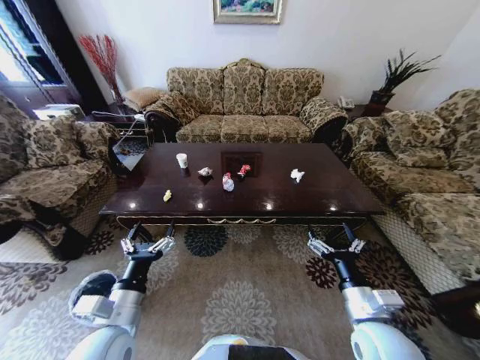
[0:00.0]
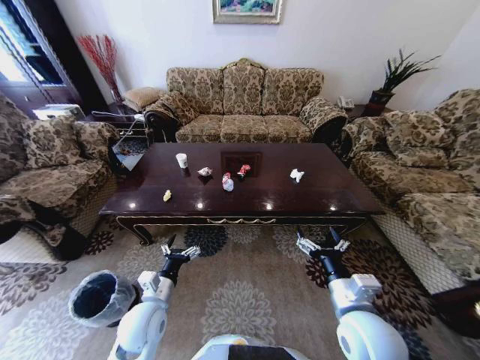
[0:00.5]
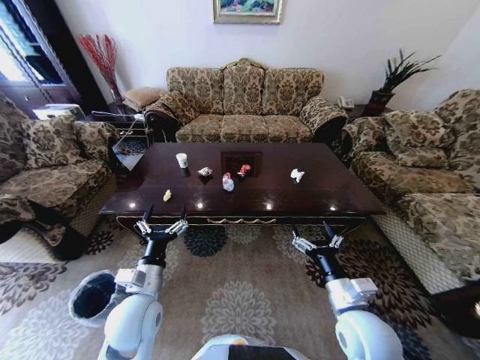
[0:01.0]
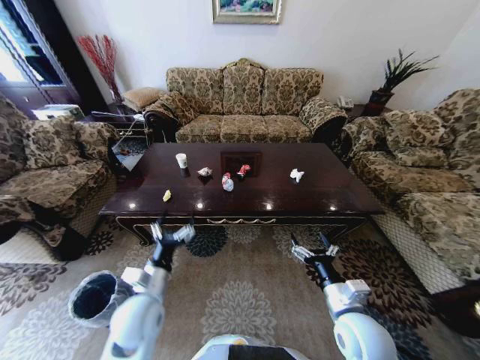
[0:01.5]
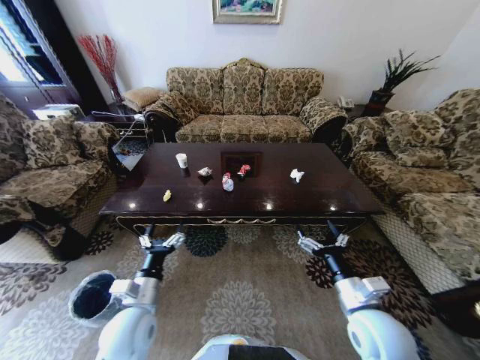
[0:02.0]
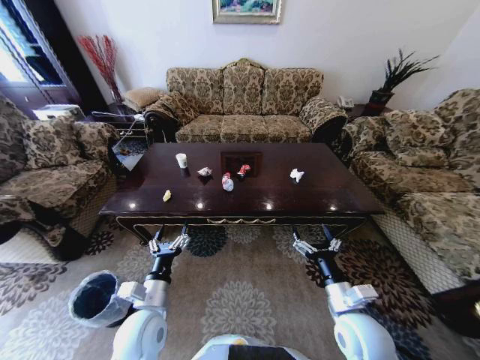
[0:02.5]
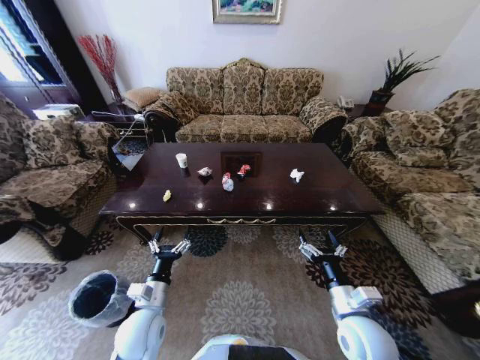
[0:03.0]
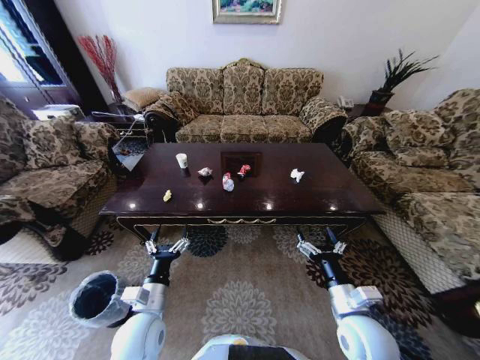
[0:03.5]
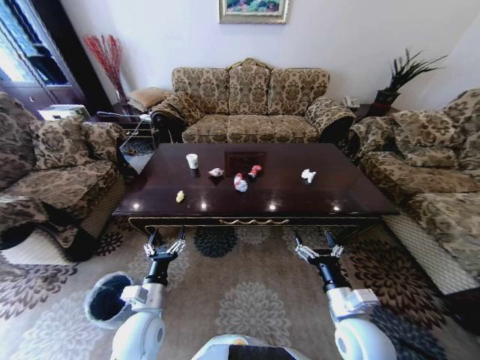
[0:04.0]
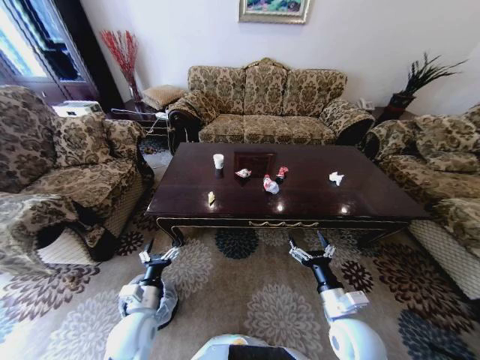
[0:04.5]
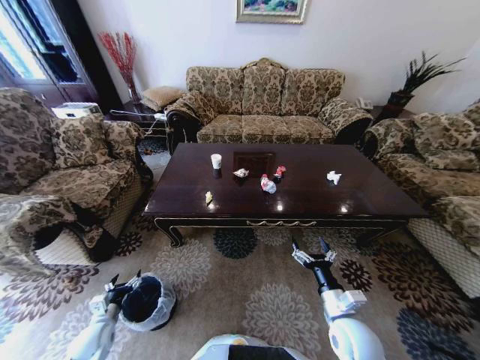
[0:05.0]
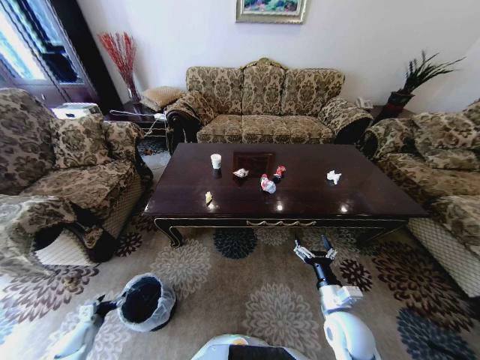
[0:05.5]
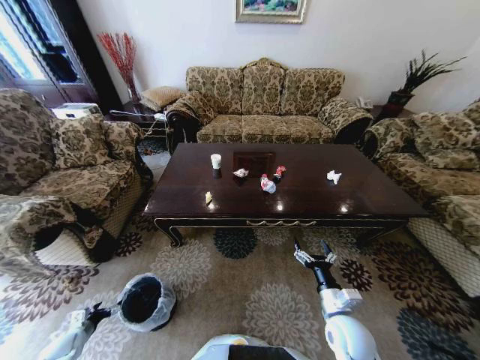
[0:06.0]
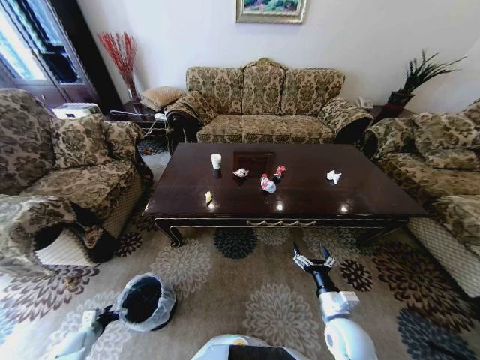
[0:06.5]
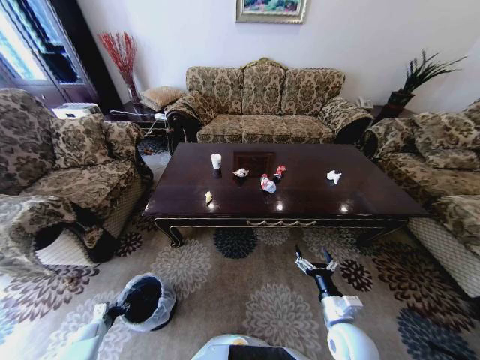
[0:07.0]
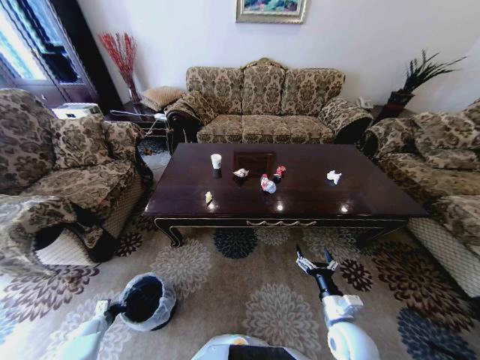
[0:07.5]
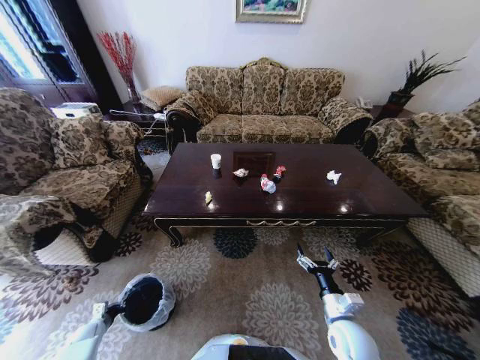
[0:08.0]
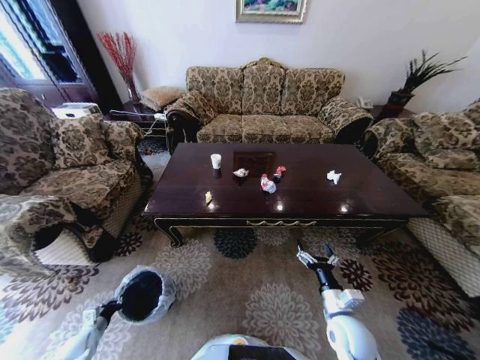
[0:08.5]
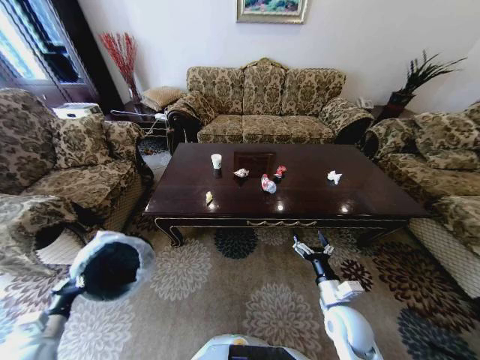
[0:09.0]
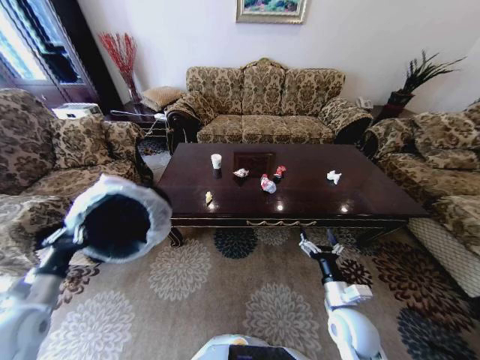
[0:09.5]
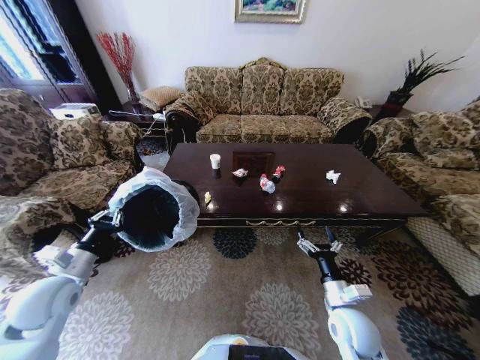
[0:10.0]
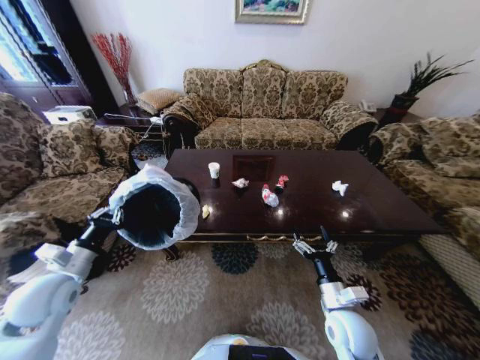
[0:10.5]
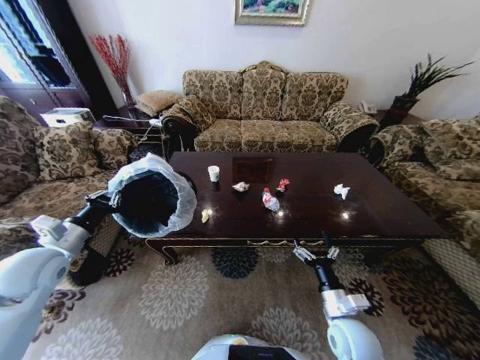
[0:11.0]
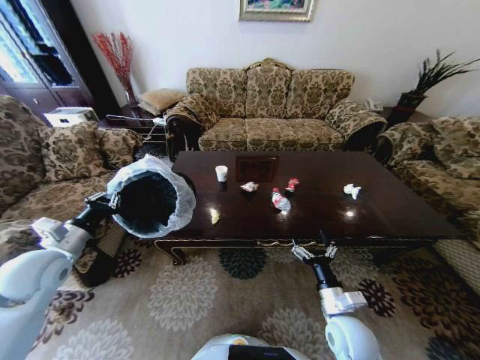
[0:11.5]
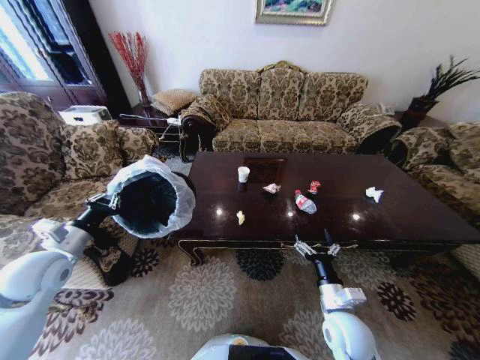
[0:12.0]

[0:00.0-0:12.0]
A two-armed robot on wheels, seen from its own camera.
Task of the whole recording: Move to the front of the table and place the trash on the table into the trash bin.
0:04.0 to 0:06.0: The right gripper goes approximately 5 cm downward; the left gripper shifts roughly 40 cm to the left and downward.
0:06.0 to 0:08.0: The left gripper shifts approximately 5 cm downward, and closes.
0:08.0 to 0:10.0: The left gripper heads upward, covering approximately 40 cm.
0:10.0 to 0:12.0: The left gripper shifts by approximately 5 cm.

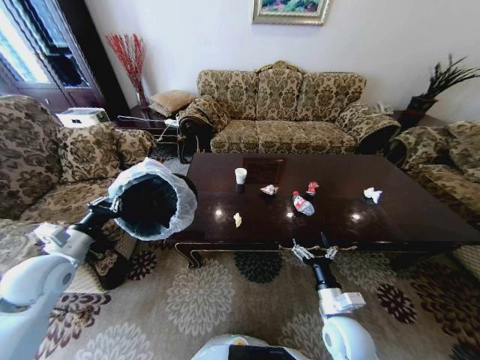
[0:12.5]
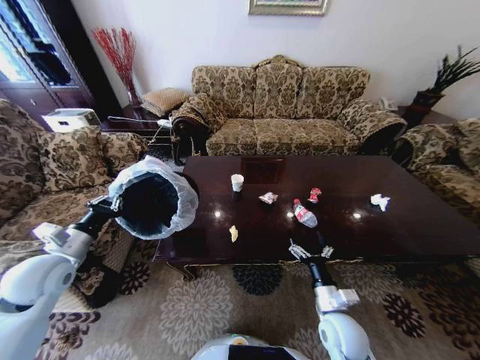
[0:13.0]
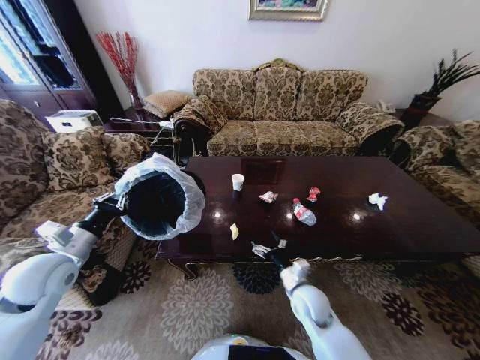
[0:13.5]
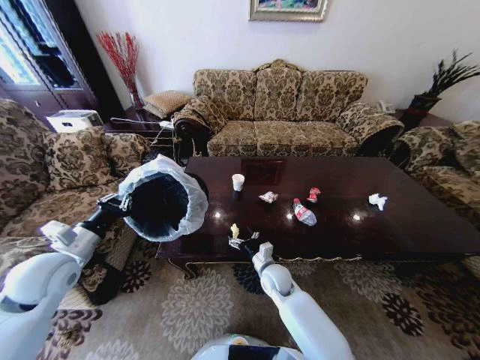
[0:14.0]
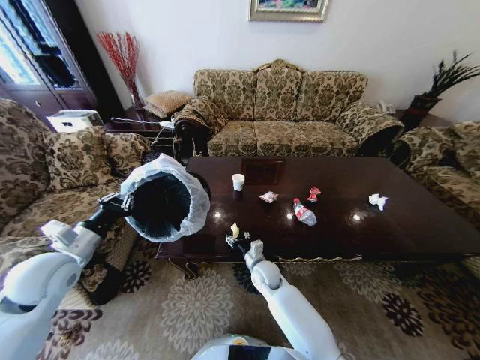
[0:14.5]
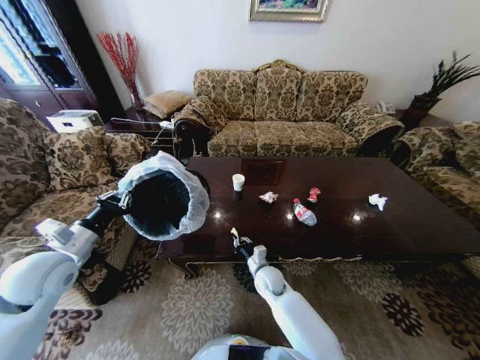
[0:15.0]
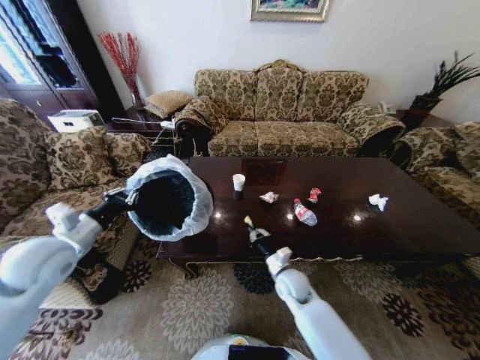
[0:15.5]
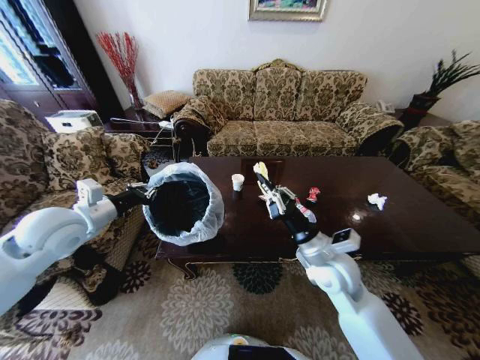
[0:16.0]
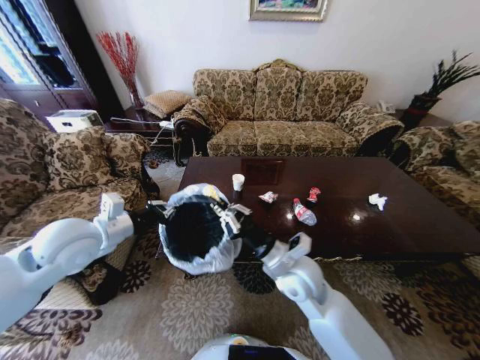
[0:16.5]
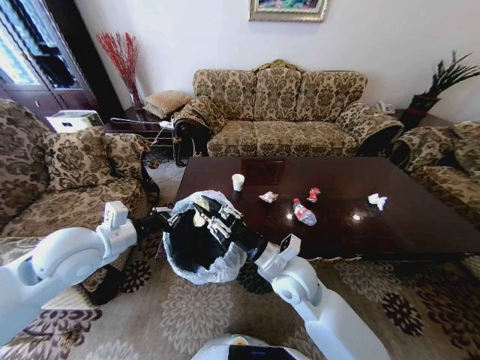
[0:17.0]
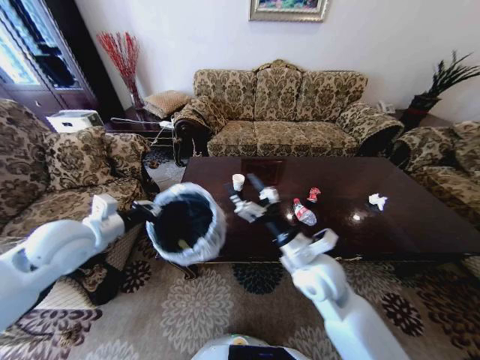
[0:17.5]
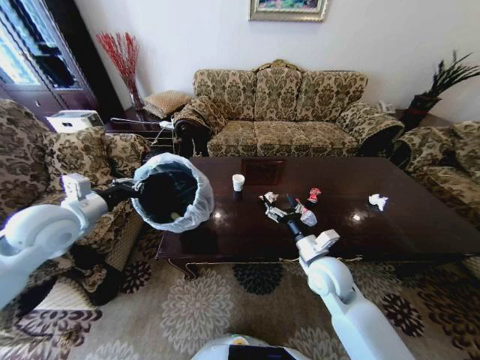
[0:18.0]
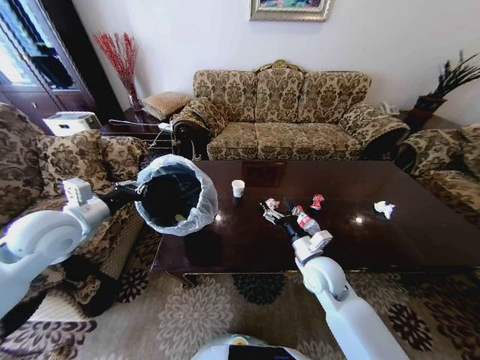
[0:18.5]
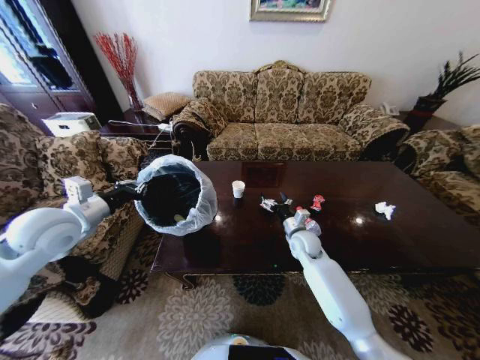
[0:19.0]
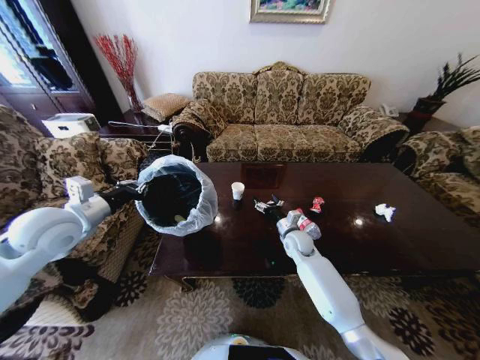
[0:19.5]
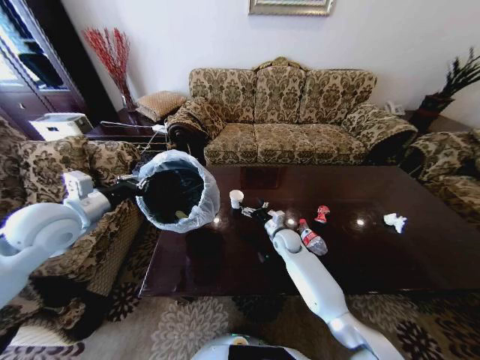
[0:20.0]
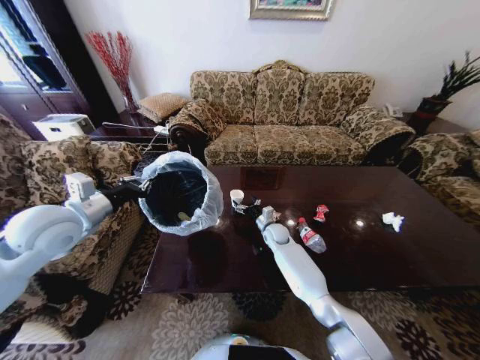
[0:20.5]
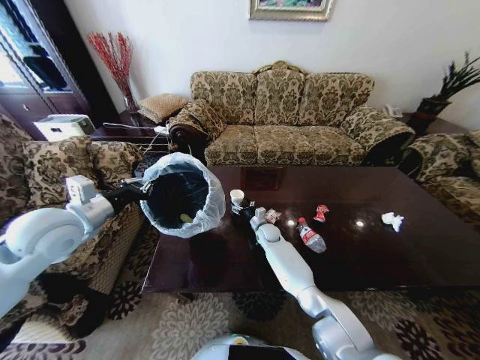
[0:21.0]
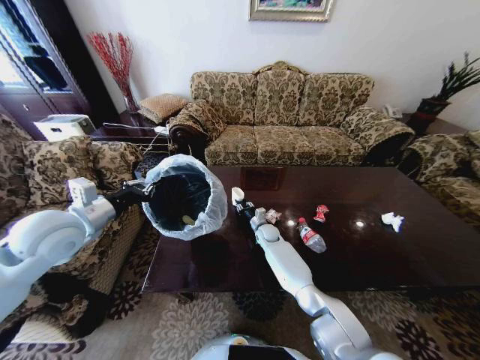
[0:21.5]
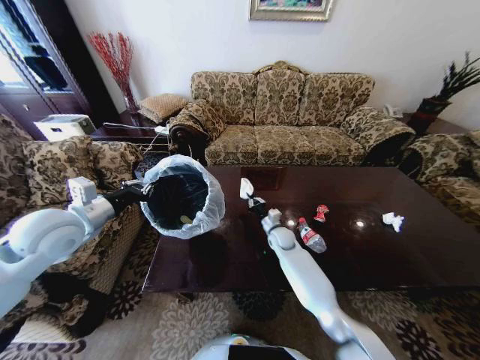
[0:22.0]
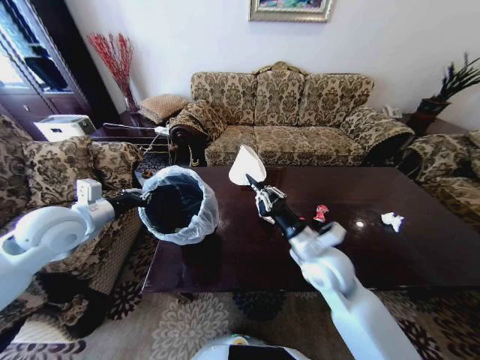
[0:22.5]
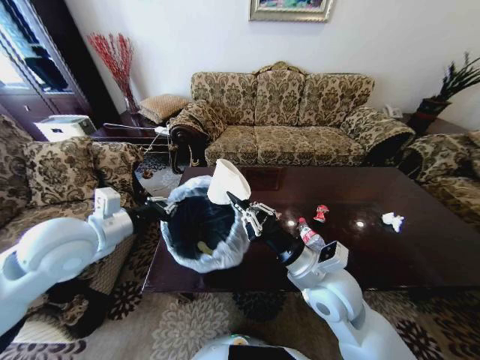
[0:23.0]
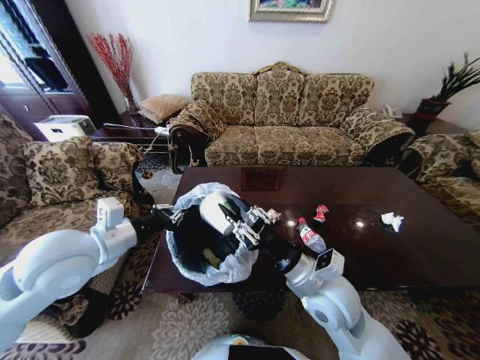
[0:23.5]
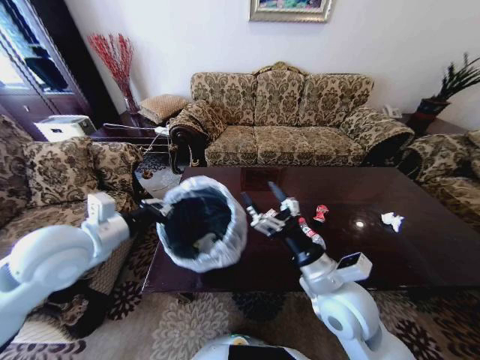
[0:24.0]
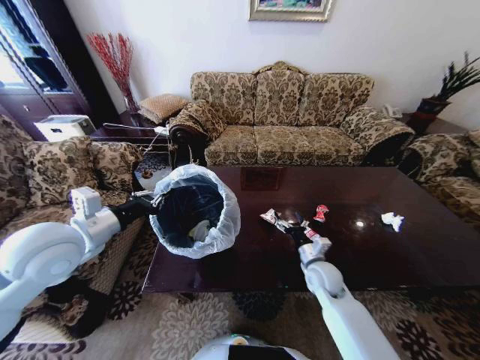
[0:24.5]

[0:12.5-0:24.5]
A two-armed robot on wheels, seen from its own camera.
Task of the whole recording: Move to the front of the table and place the trash on the table into the trash bin.
0:12.5 to 0:14.5: The right gripper travels forward, to the left and downward by roughly 25 cm.
0:14.5 to 0:16.5: The left gripper shifts approximately 10 cm to the right and upward. The right gripper moves upward, roughly 20 cm, and closes its fingers.
0:16.5 to 0:18.5: The right gripper travels to the right and downward by roughly 10 cm, and opens up, while the left gripper ends up about 5 cm from where it was.
0:18.5 to 0:20.5: The right gripper goes approximately 25 cm forward and downward.
0:20.5 to 0:22.5: The right gripper moves backward and upward, approximately 30 cm, and closes.
0:22.5 to 0:24.5: The left gripper shifts roughly 5 cm backward and to the right, while the right gripper is displaced downward by about 15 cm, and opens.

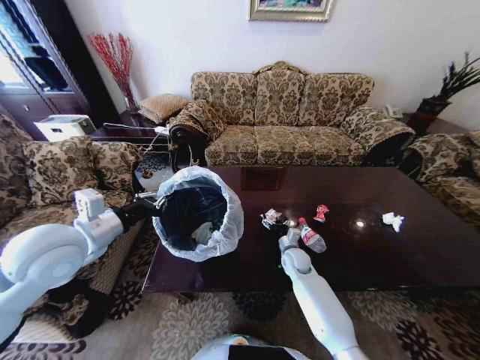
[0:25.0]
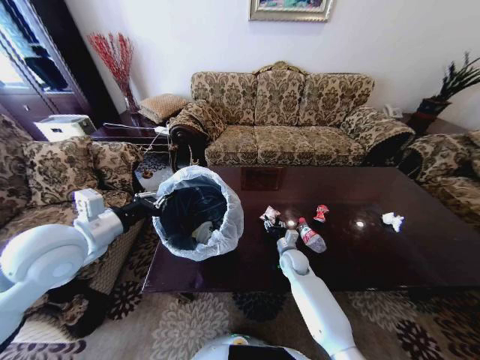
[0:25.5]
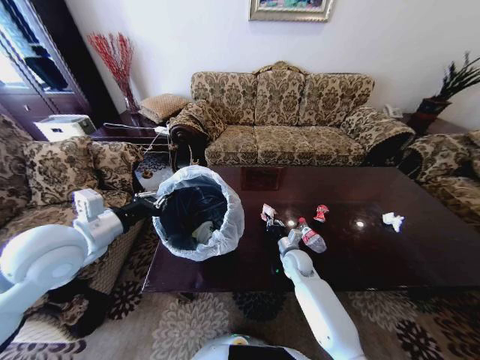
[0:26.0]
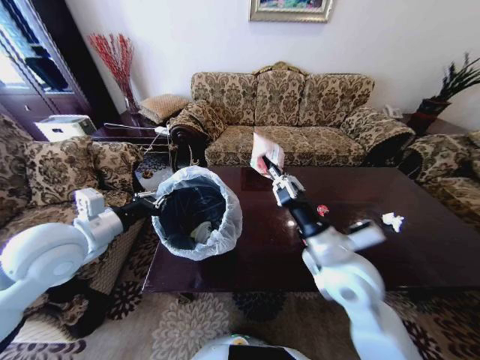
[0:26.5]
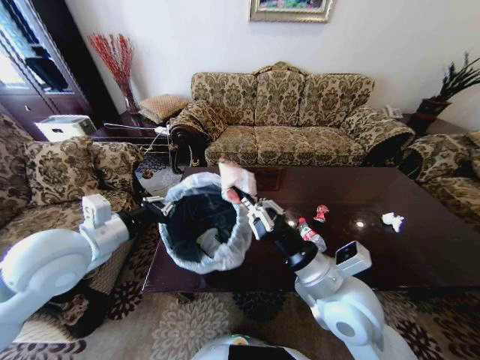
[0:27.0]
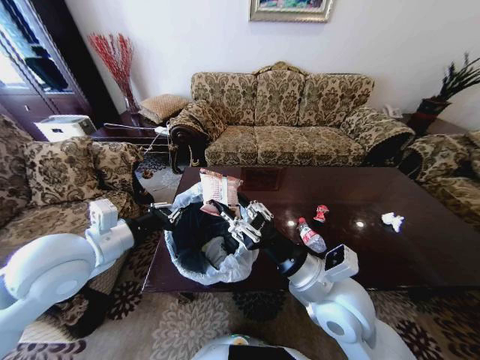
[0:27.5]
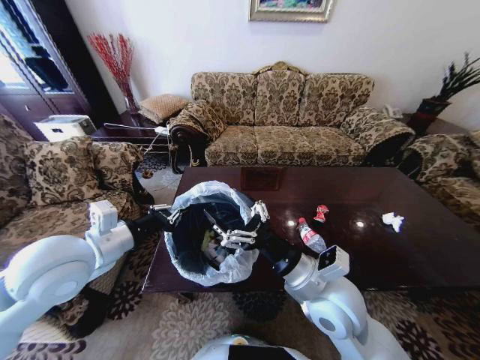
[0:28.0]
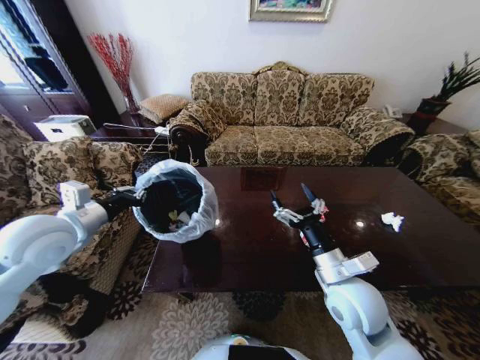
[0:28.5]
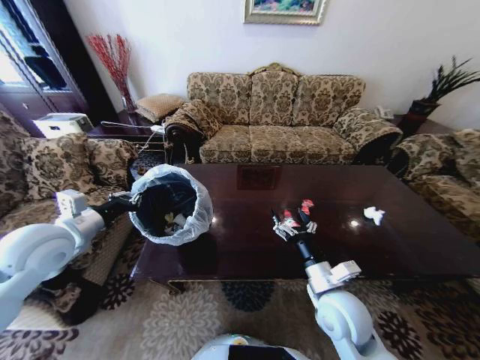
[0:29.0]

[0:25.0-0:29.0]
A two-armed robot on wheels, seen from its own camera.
Task of the whole recording: Move to the front of the table and place the trash on the table into the trash bin.
0:25.0 to 0:27.0: The right gripper heads upward and backward, covering roughly 30 cm, and closes up.
0:27.0 to 0:29.0: The right gripper shifts roughly 10 cm downward, and opens; the left gripper travels to the left by approximately 10 cm.
